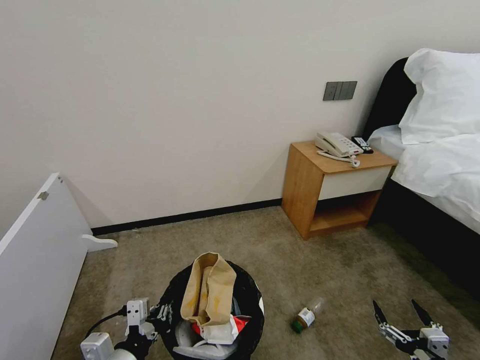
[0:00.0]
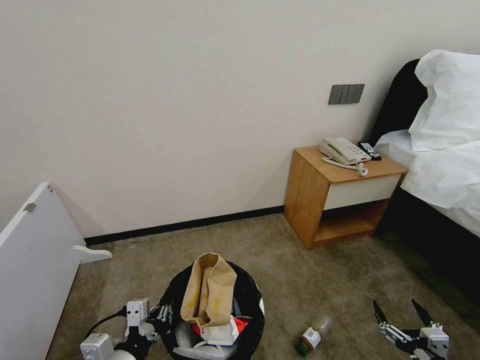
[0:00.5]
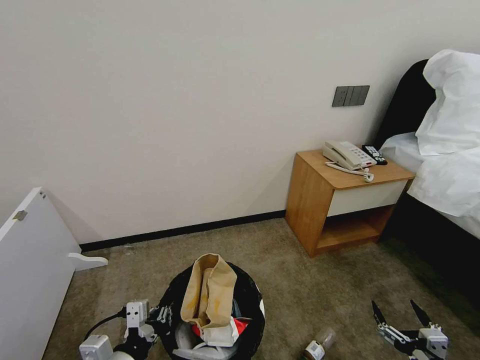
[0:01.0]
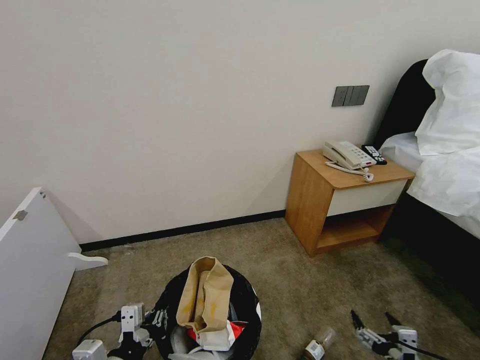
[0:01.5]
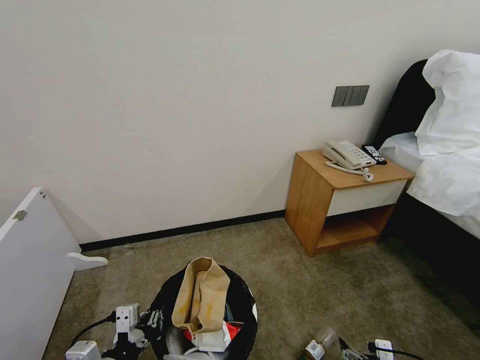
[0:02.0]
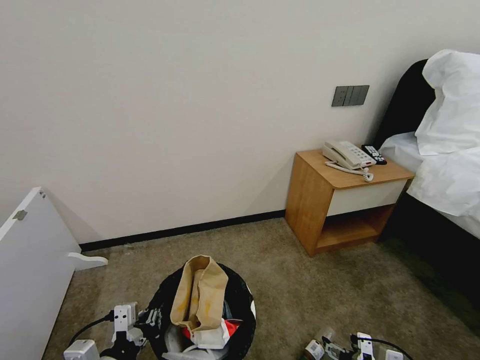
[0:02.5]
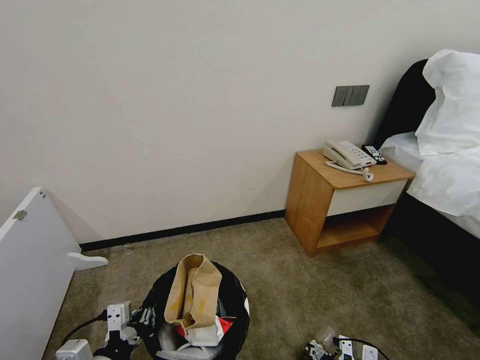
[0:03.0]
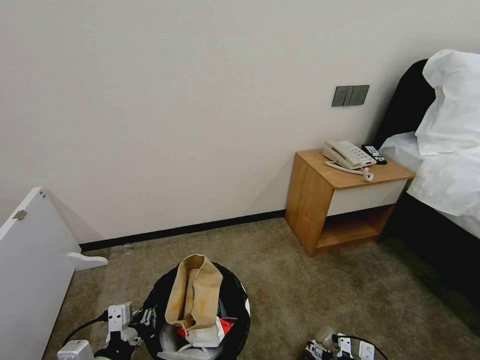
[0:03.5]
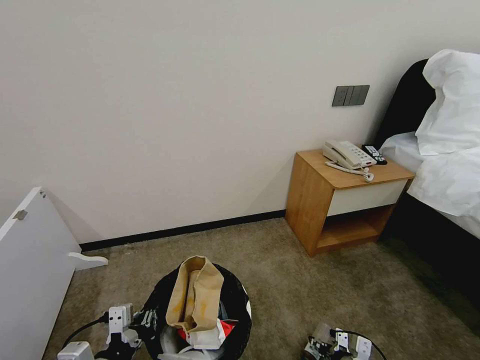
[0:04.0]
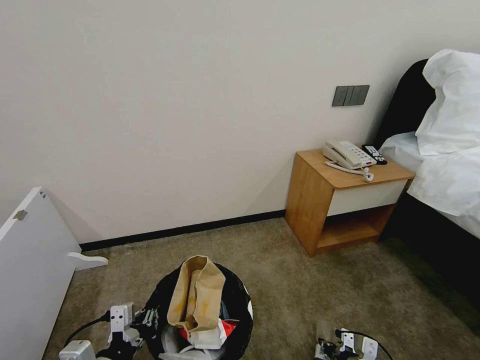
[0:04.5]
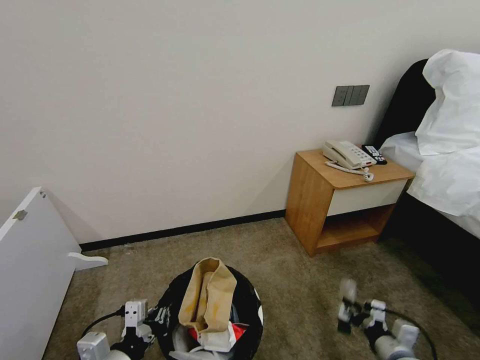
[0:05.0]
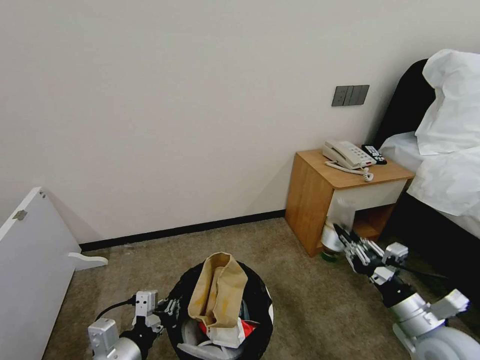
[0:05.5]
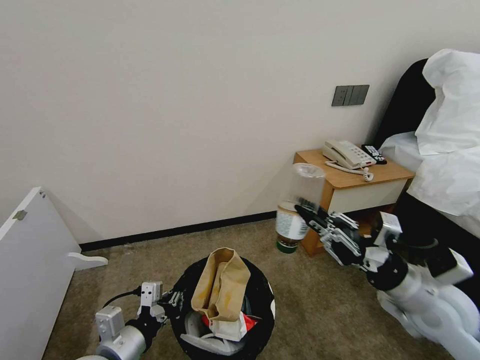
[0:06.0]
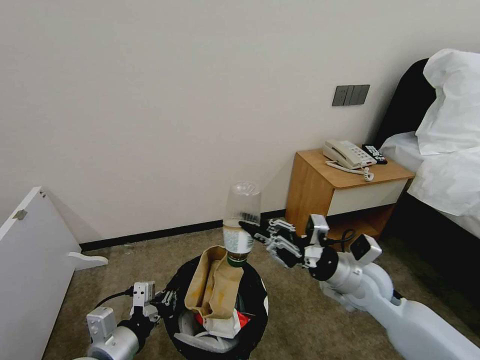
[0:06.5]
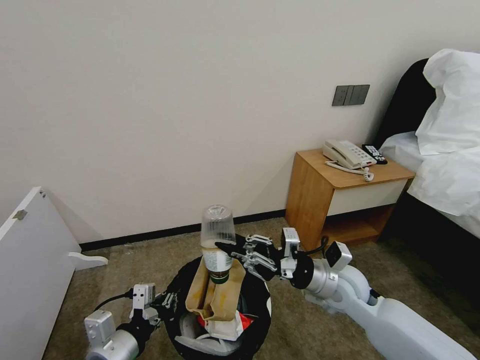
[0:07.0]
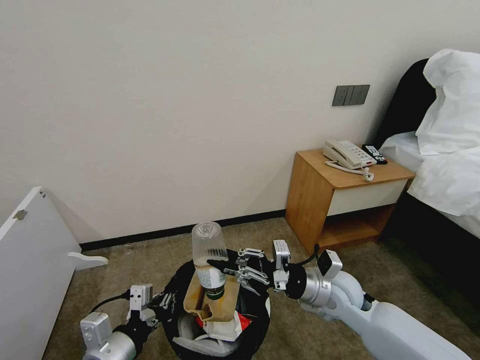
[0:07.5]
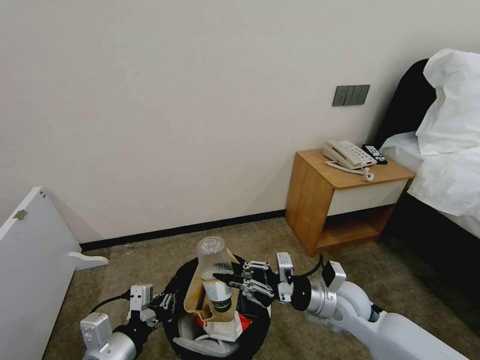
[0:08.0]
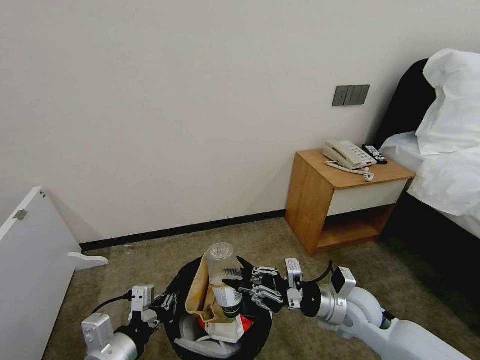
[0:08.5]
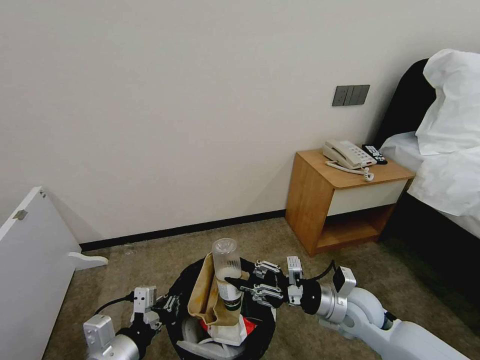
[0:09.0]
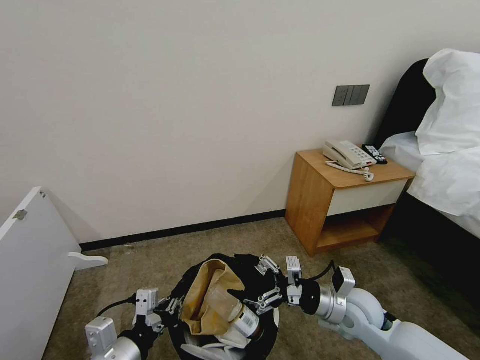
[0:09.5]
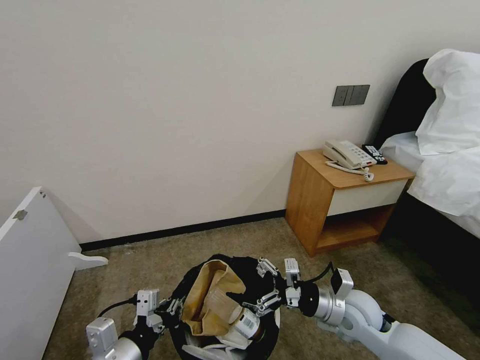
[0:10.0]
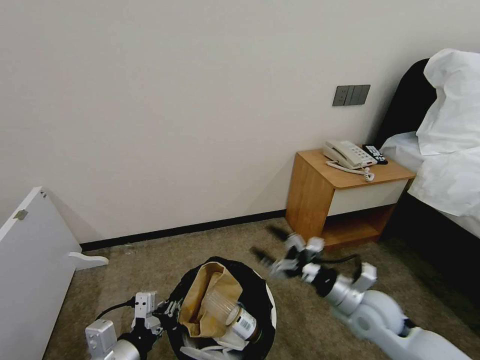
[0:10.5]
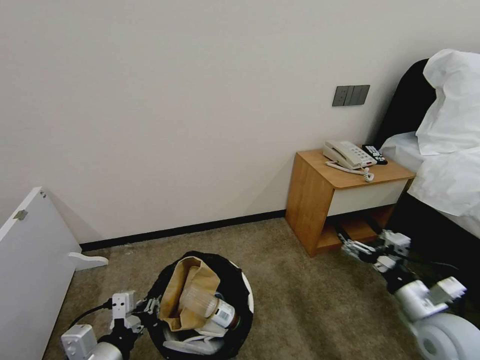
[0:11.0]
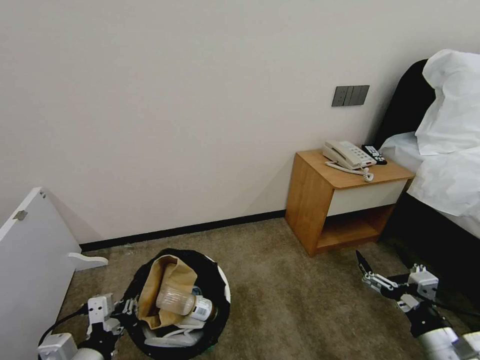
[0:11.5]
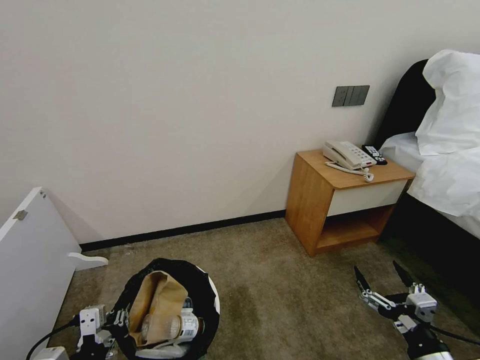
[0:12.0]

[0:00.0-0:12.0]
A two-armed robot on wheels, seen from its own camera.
Task of the whole recording: Pick up the trash bin, then pick up the garbage from the floor and place it into the trash bin.
0:00.0 to 0:02.0: The right gripper is displaced to the left by some 5 cm.
0:02.0 to 0:04.0: The right gripper is displaced forward and downward by about 15 cm.
0:04.0 to 0:06.0: The left gripper is displaced forward by approximately 5 cm. Meanwhile the right gripper travels upward by roughly 30 cm, and closes up.
0:06.0 to 0:08.0: The right gripper moves downward, to the left and forward, about 15 cm.
0:08.0 to 0:10.0: The right gripper opens its fingers.
0:10.0 to 0:12.0: The right gripper heads backward and to the right, covering about 20 cm, while the left gripper goes approximately 5 cm to the left.
